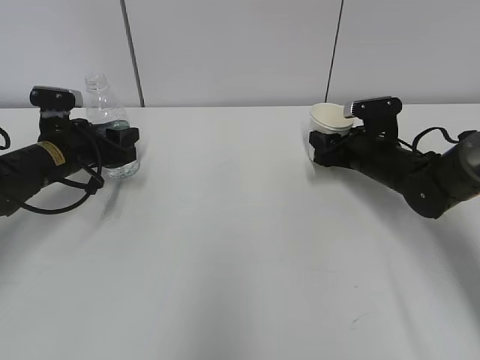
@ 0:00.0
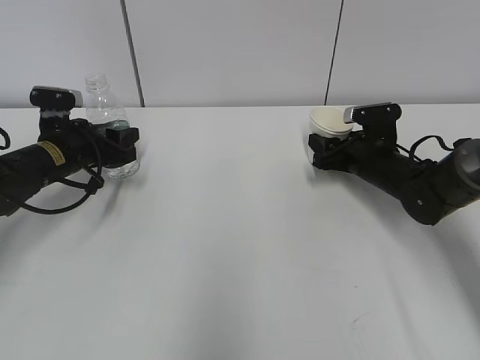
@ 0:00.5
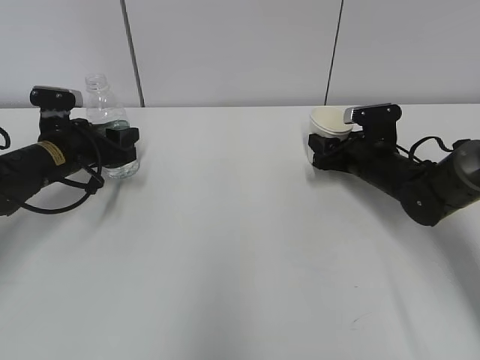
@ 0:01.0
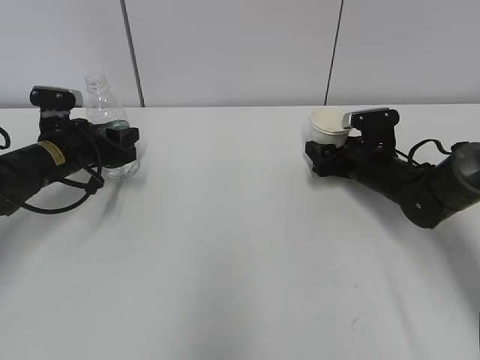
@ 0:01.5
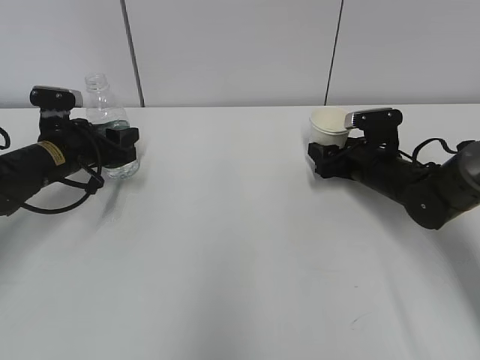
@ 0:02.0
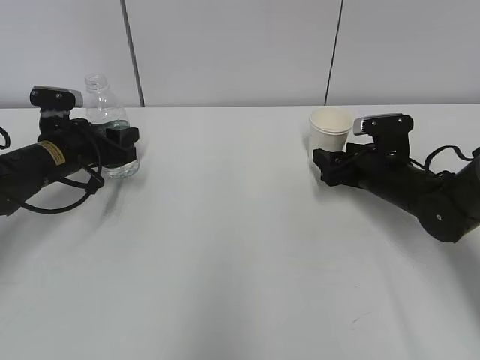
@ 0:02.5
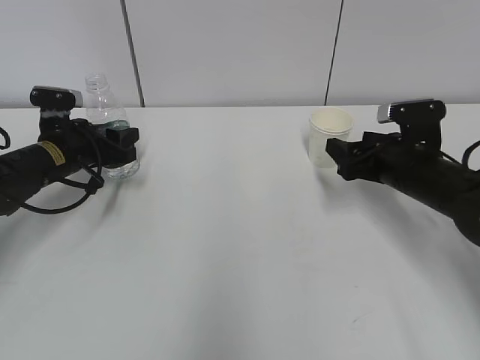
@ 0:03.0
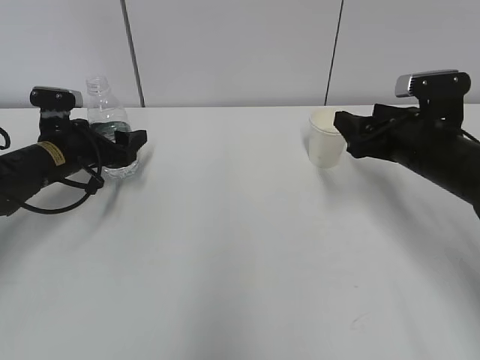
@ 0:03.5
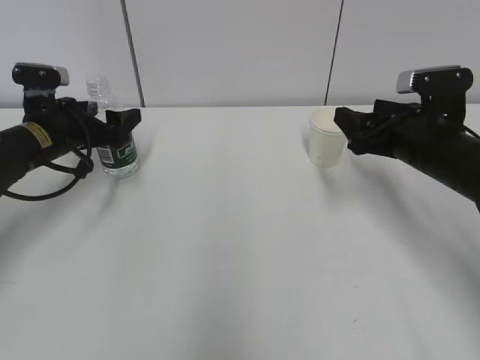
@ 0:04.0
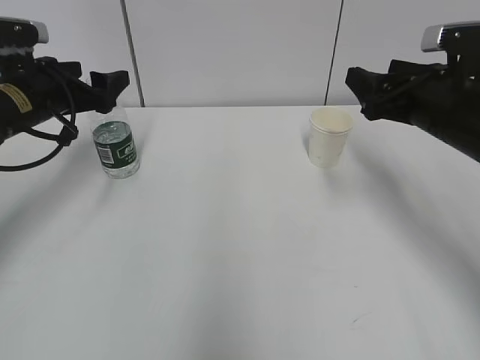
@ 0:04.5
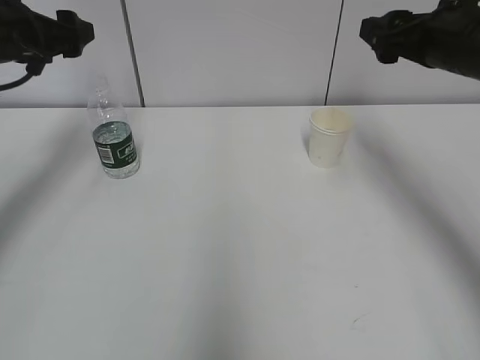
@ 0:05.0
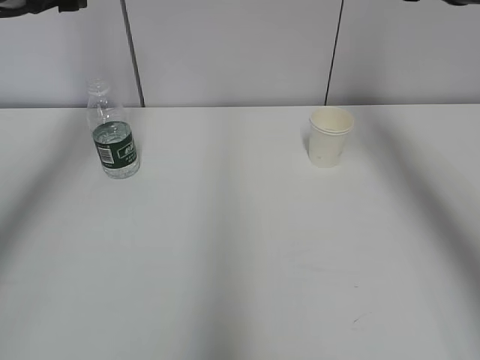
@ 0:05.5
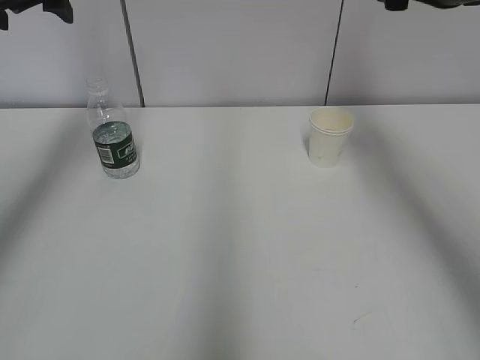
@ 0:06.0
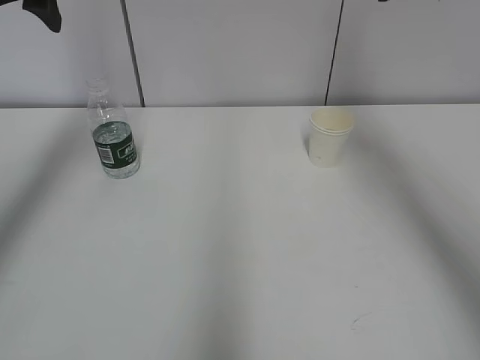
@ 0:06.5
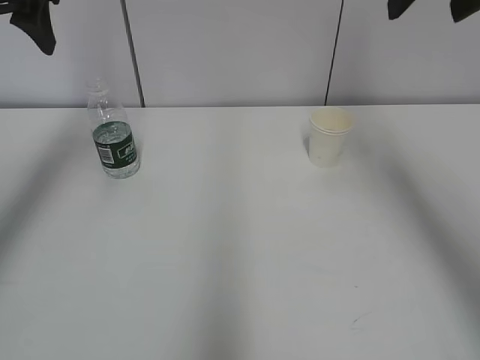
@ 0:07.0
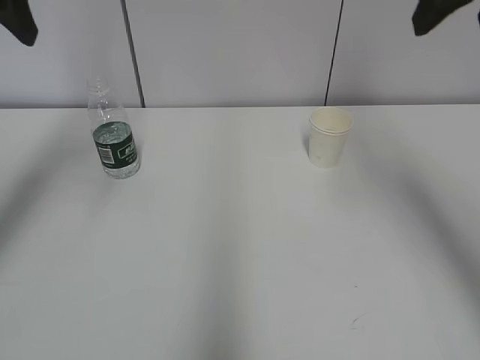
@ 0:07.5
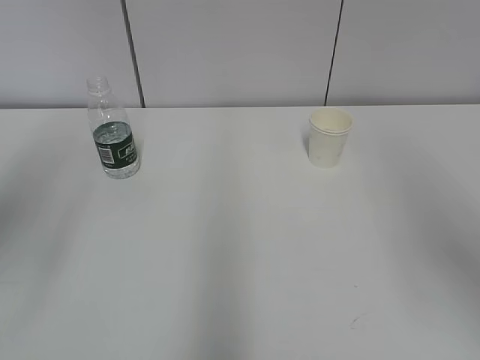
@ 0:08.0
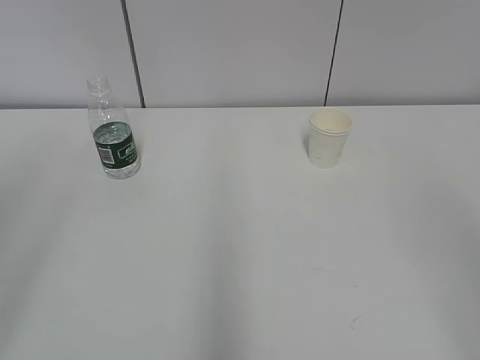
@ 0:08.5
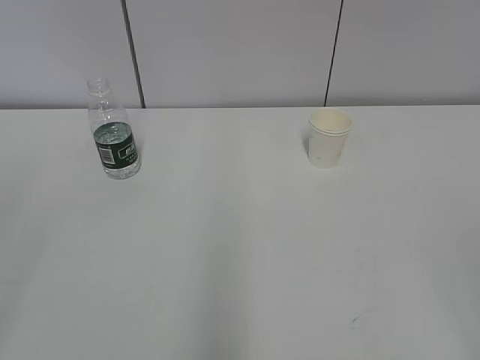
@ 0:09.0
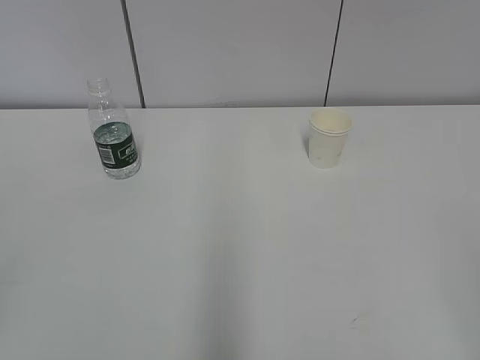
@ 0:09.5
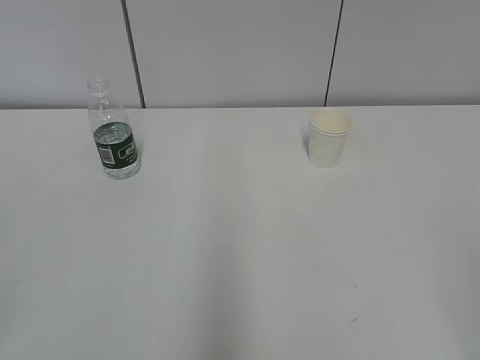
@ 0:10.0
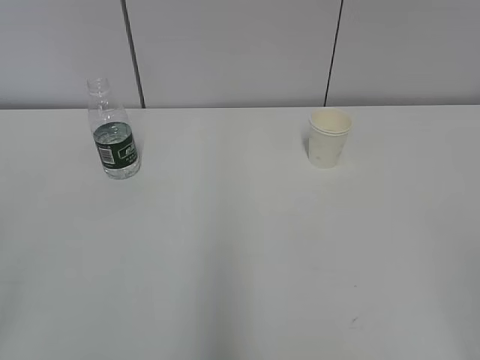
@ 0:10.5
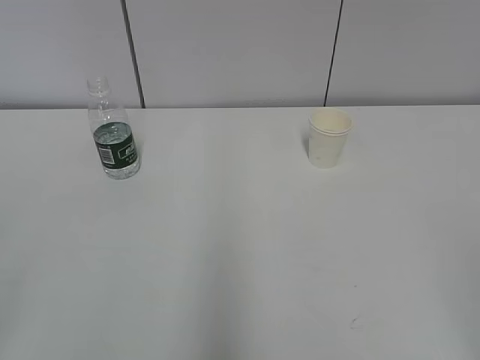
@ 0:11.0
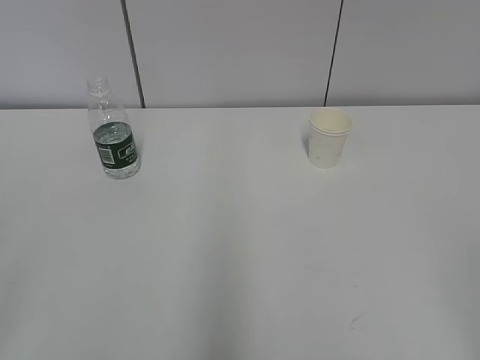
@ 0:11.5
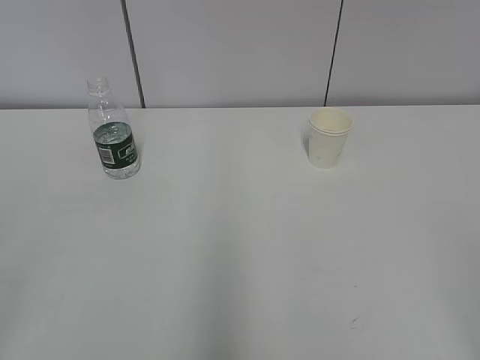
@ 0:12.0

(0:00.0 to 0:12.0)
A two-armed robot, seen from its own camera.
0:00.0 - 0:02.0: The right gripper opens its fingers.
0:02.0 - 0:04.0: The right gripper heads upward and backward, covering about 15 cm; the left gripper opens its fingers.
0:04.0 - 0:06.0: The grippers both shift upward by about 20 cm.
0:06.0 - 0:08.0: The two grippers go about 20 cm backward.
